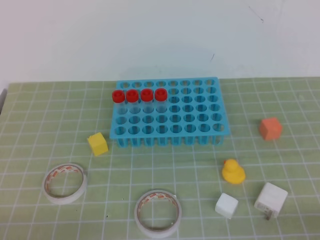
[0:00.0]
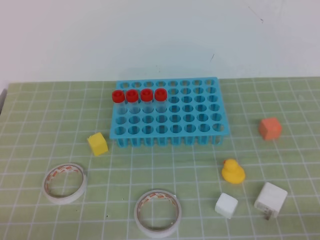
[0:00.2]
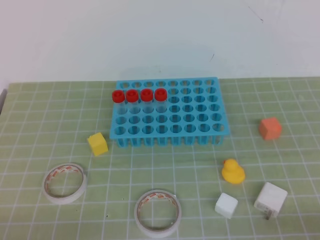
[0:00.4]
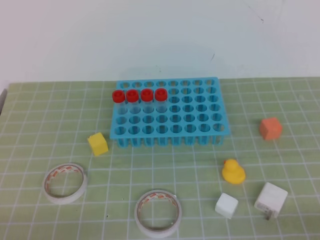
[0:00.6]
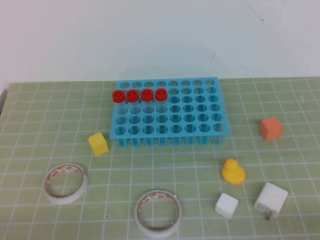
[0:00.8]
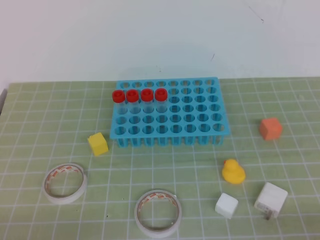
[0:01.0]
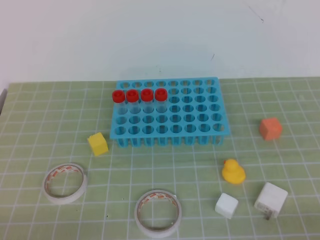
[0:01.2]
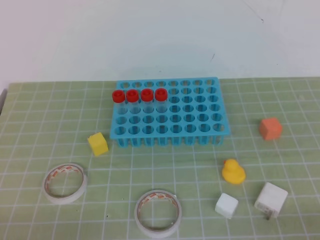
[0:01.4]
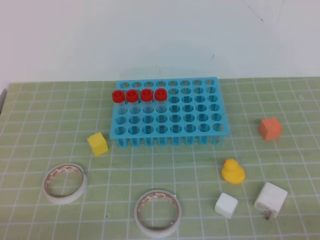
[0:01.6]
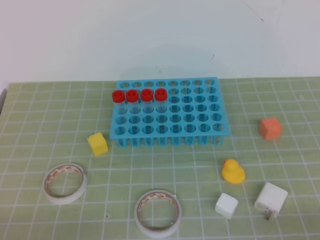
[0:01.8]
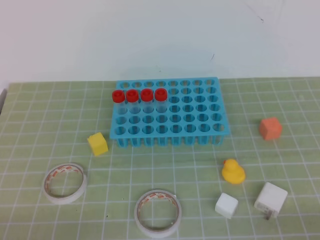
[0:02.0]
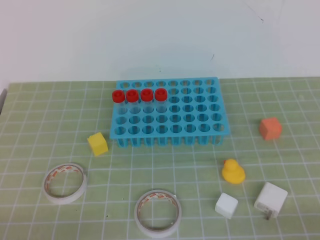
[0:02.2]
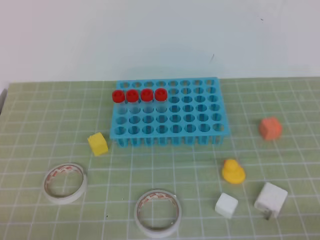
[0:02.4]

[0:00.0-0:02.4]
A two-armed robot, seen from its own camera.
0:01.2 to 0:02.4: Neither gripper changes place.
